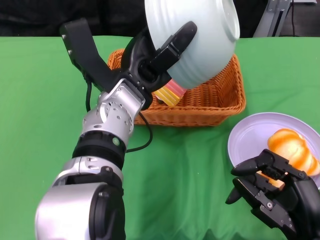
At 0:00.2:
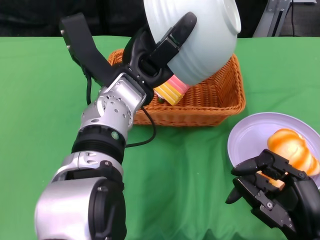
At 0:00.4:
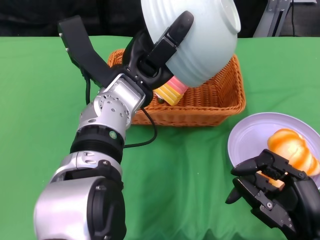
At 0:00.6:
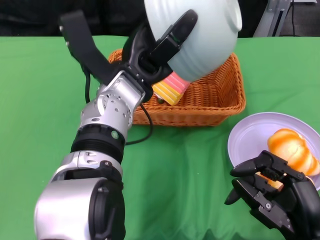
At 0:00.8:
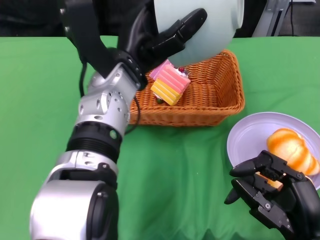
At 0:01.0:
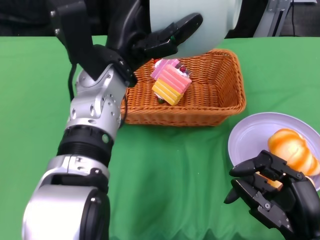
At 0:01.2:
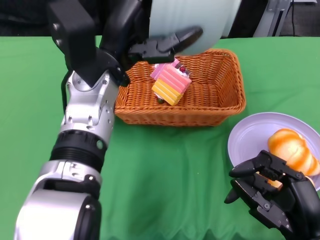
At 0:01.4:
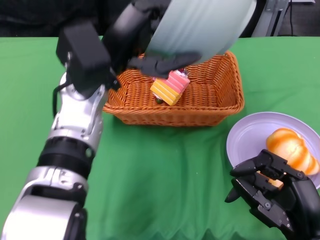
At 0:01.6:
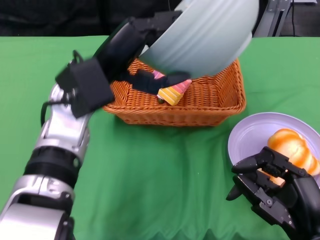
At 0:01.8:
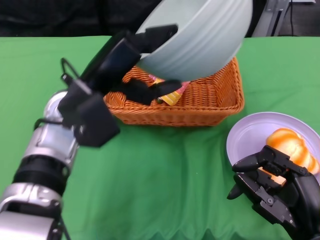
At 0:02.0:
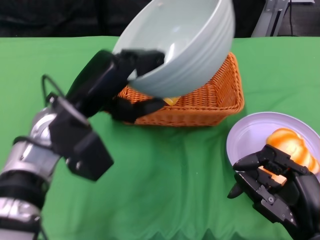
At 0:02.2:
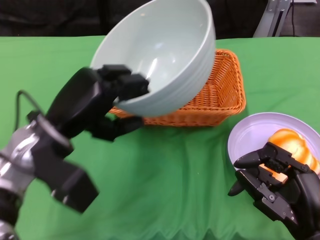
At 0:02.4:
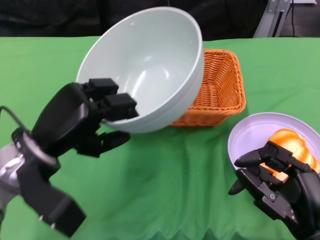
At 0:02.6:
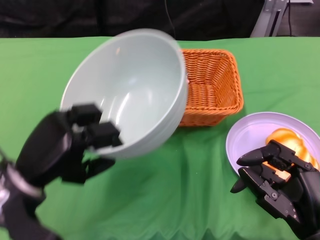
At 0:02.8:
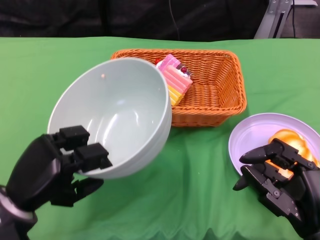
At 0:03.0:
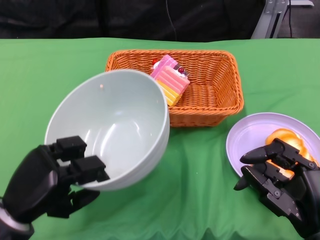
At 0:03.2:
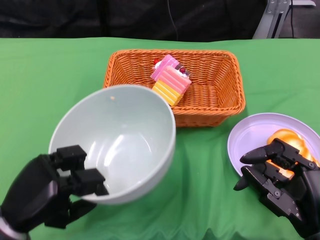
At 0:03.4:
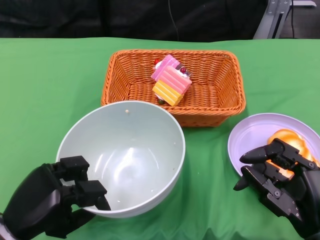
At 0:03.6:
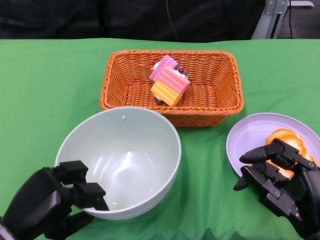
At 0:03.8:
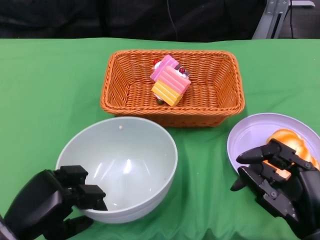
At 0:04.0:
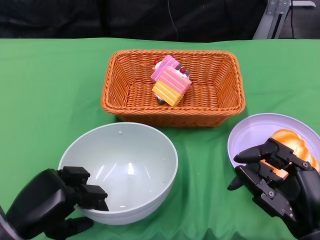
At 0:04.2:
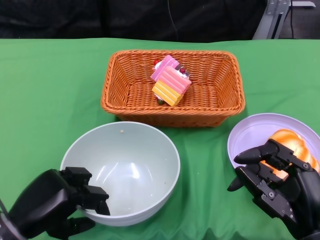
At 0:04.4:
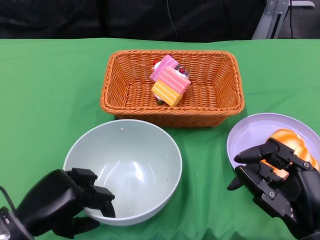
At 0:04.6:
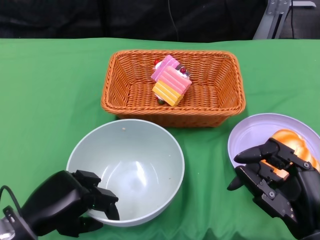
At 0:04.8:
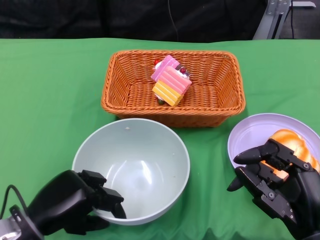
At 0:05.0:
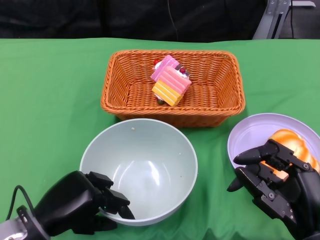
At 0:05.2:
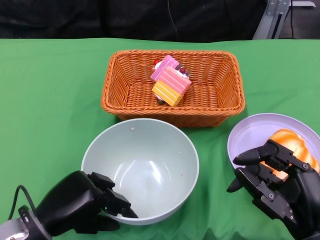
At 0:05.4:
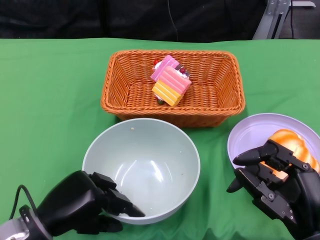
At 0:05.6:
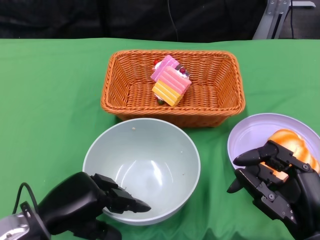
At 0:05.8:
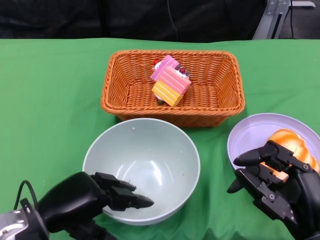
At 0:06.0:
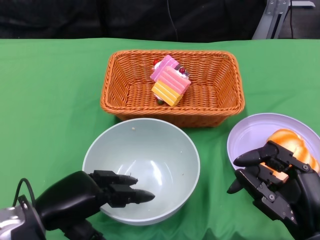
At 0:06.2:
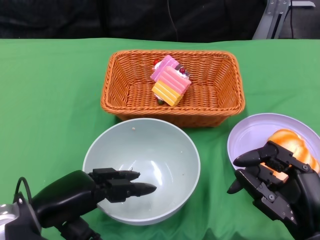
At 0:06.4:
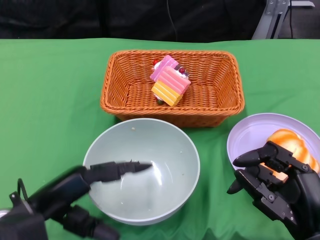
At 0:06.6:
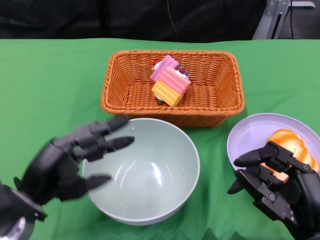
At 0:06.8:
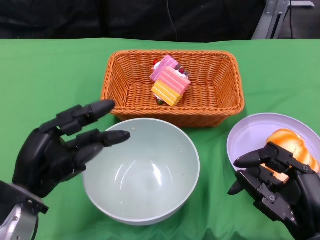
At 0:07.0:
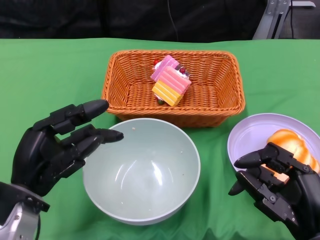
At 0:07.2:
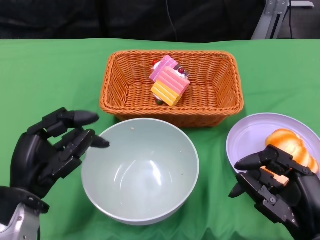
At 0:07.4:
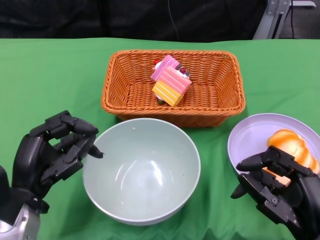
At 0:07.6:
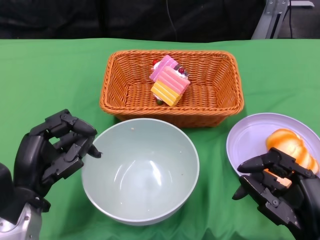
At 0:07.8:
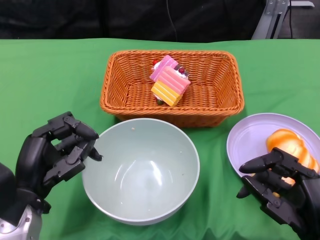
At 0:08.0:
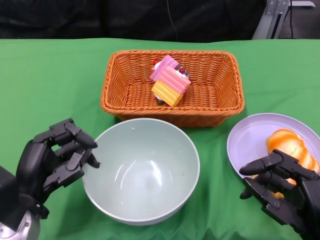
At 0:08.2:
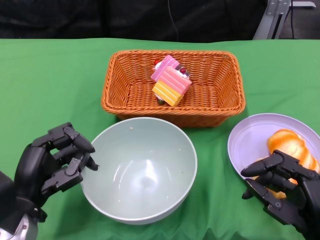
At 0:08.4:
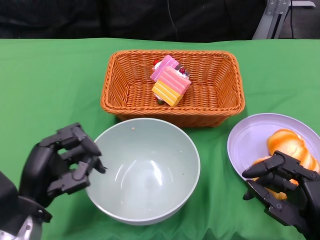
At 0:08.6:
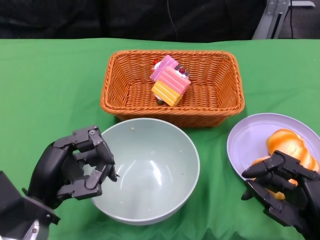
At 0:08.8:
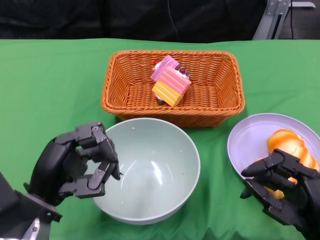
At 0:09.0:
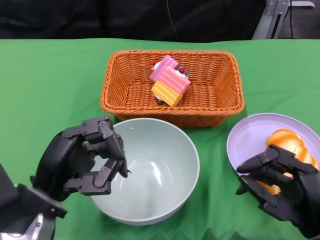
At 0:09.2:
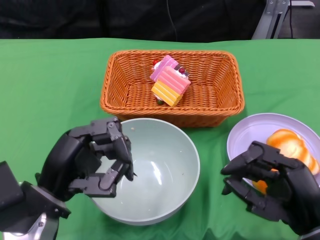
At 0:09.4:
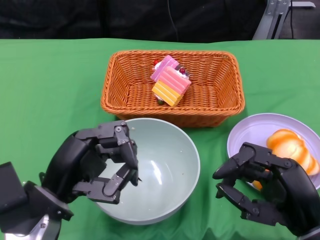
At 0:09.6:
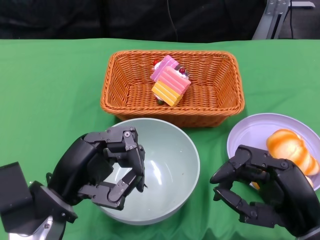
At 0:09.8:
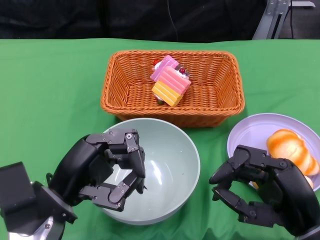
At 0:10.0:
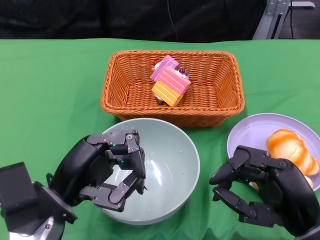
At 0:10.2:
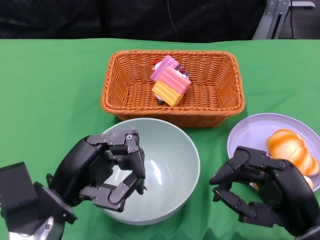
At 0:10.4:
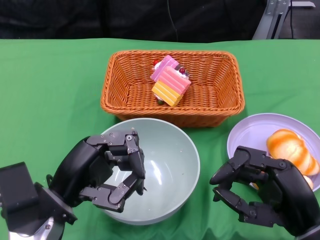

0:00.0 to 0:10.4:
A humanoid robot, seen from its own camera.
Step, 0:00.0 to 0:02.0: Pour the cake into the basket with the left gripper.
Step, 0:02.2 to 0:06.6: Place the bowl on the table with the left gripper.
0:00.0 to 0:01.4: The left hand moves about 5 cm.
0:01.4 to 0:03.0: The left hand heads downward, to the left and backward, covering some 20 cm.
0:04.4 to 0:06.0: The hands make only small movements.
0:07.4 to 0:09.0: The hands stay close to where they were, moving slightly.
0:09.0 to 0:10.4: The hands stay close to where they were, moving slightly.

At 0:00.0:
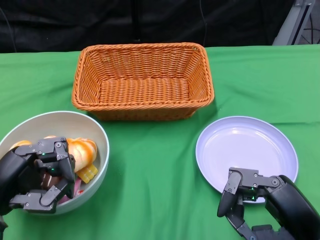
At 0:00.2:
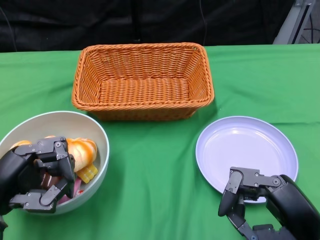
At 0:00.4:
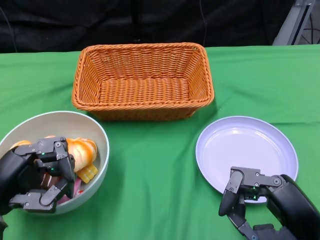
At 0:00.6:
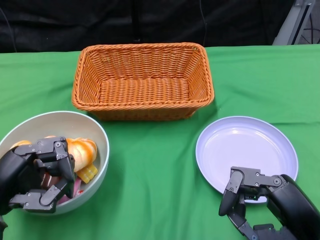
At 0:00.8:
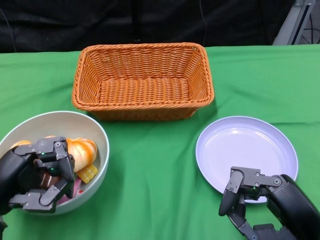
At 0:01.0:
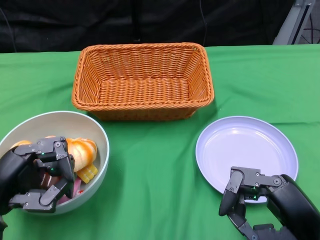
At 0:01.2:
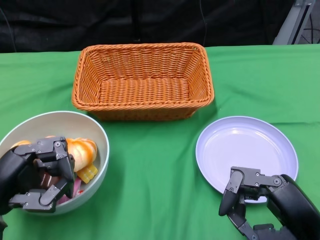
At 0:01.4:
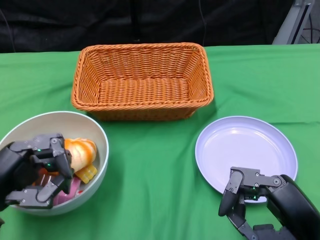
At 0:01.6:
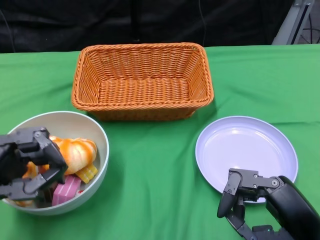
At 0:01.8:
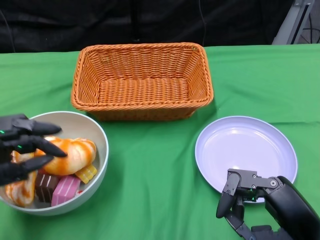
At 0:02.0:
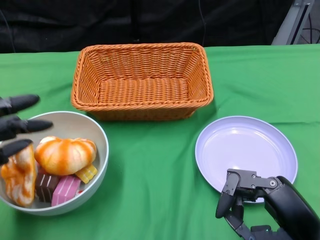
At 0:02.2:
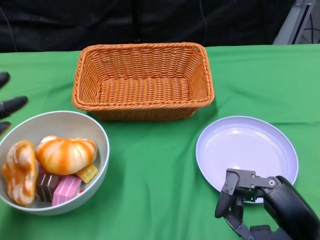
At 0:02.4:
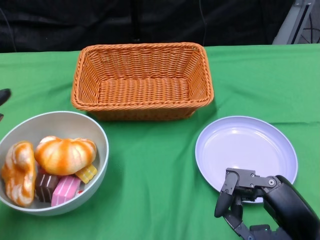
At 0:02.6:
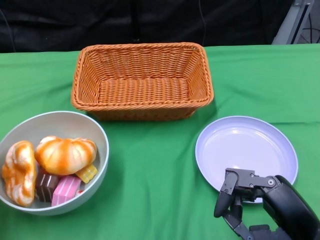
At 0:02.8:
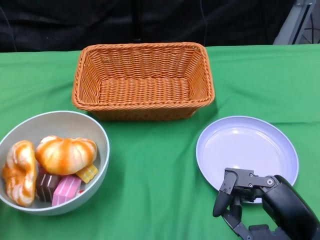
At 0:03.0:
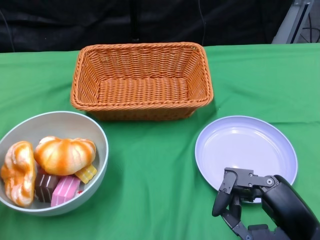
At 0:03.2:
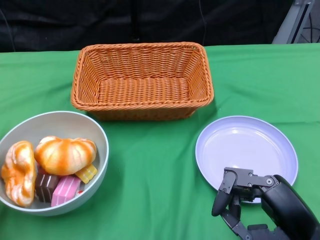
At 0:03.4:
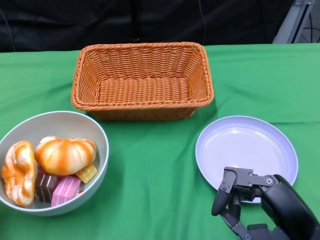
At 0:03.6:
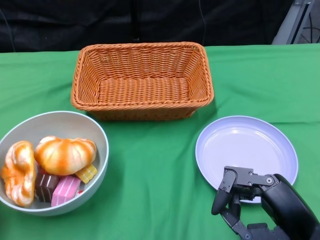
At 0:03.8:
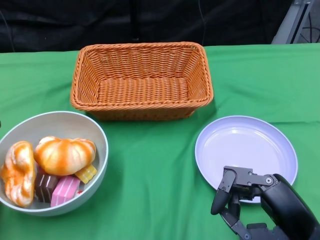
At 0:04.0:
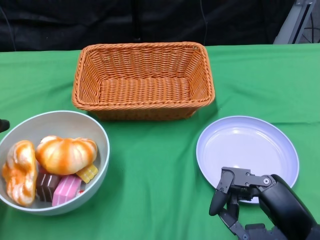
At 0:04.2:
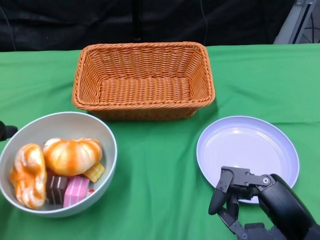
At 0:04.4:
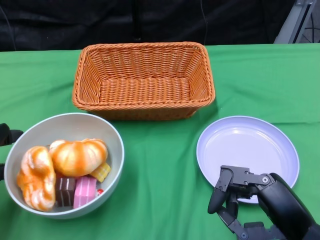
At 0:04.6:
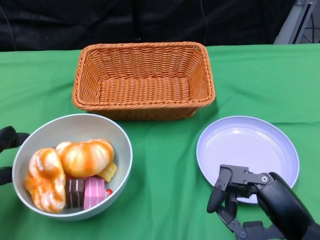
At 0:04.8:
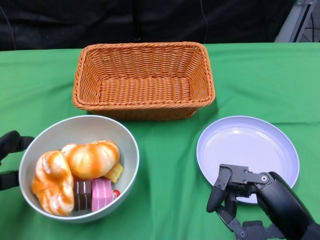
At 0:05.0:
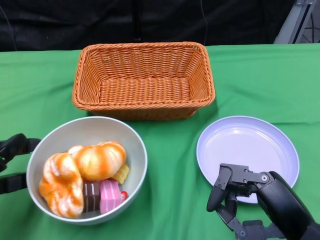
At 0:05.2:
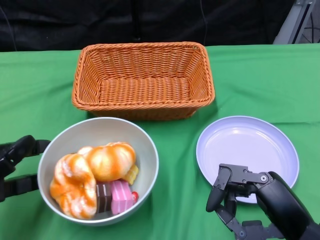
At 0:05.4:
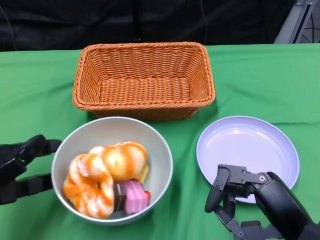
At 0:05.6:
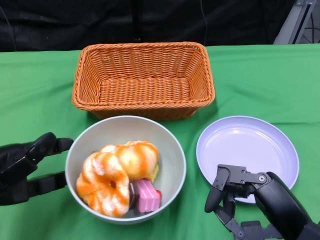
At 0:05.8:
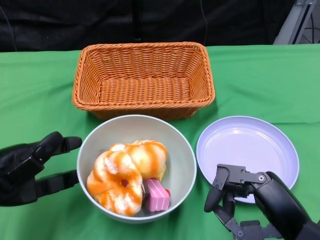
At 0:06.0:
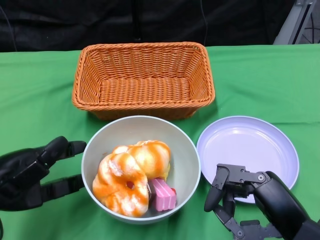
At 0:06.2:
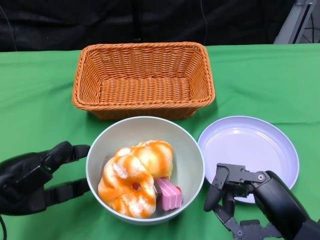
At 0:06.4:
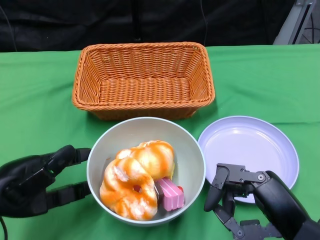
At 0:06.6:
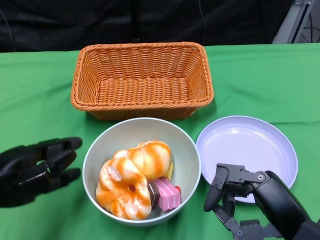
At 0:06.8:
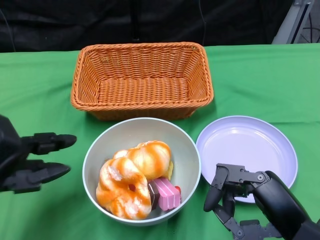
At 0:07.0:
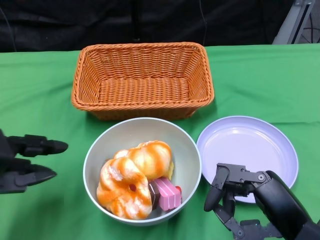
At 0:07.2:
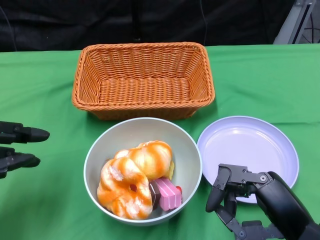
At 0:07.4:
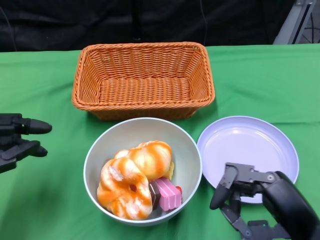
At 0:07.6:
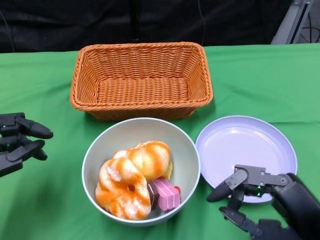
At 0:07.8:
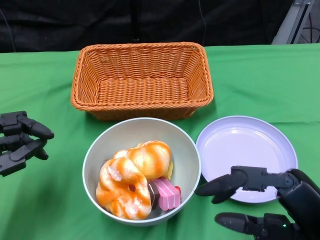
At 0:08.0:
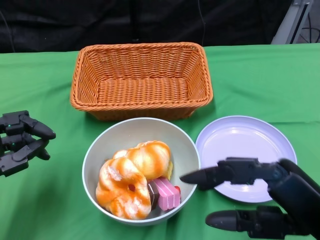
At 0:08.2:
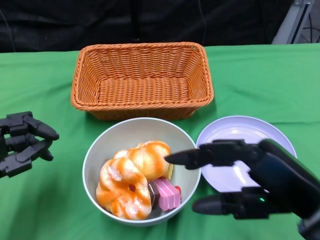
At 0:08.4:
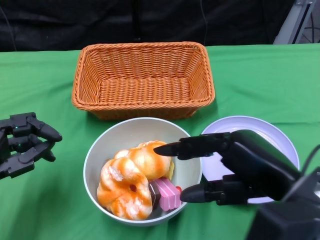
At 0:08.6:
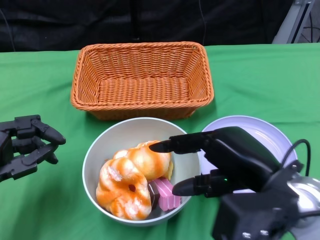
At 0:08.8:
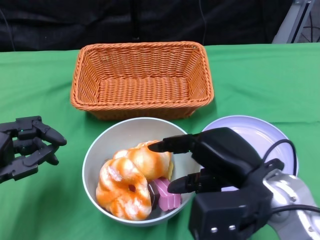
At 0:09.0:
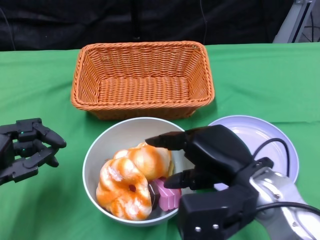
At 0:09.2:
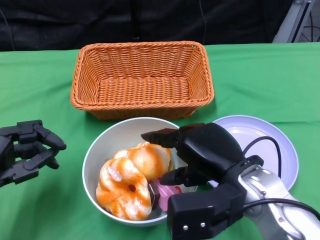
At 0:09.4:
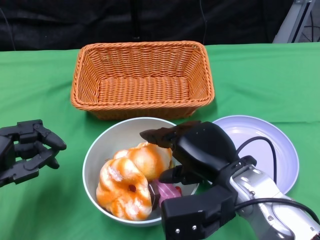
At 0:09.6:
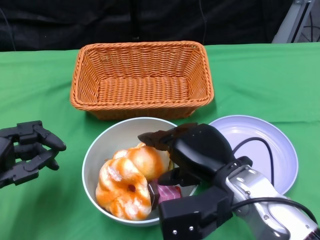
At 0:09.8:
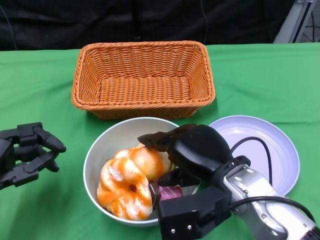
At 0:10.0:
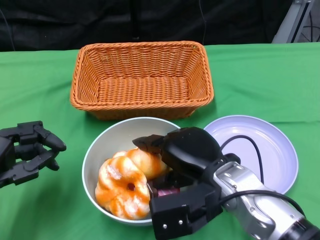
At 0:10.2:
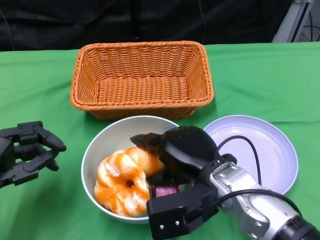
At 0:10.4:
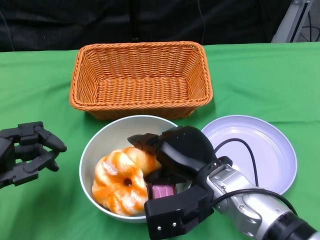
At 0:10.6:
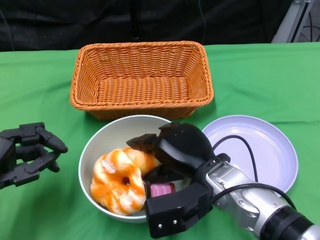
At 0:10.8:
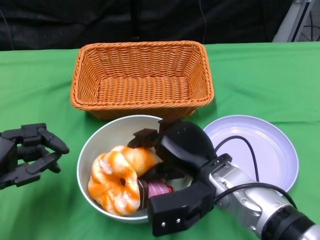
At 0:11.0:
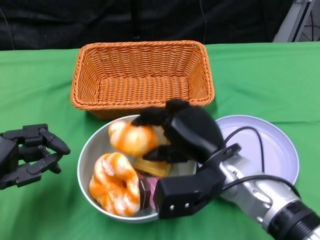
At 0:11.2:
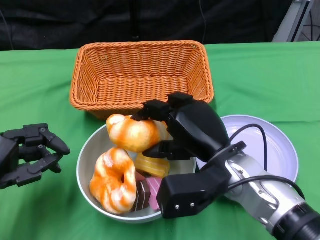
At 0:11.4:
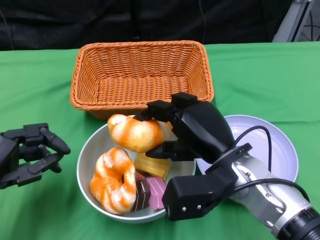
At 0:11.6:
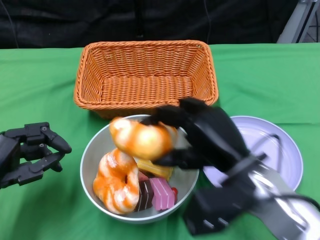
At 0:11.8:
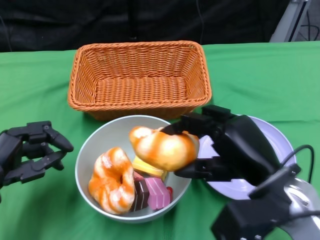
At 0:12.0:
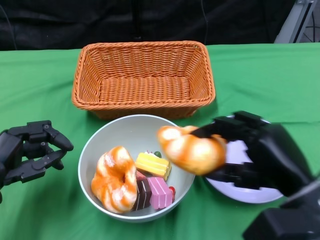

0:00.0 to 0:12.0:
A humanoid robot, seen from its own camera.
Step, 0:00.0 to 0:07.6: Push the bowl to the center of the table using the left gripper.
0:01.6 to 0:03.0: The left hand shifts some 5 cm to the left.
0:04.4 to 0:06.0: The left hand heads to the right, covering approximately 5 cm.
0:06.0 to 0:07.6: The left hand moves roughly 5 cm.
0:07.6 to 0:09.0: The right hand is displaced to the left and forward by roughly 10 cm.
0:09.0 to 0:10.4: The right hand shifts approximately 5 cm to the left.
0:10.4 to 0:12.0: The right hand moves to the right, some 10 cm.
